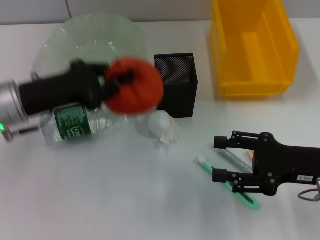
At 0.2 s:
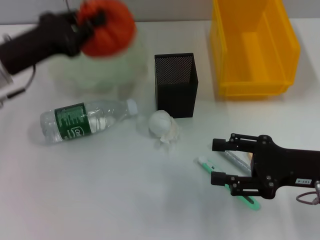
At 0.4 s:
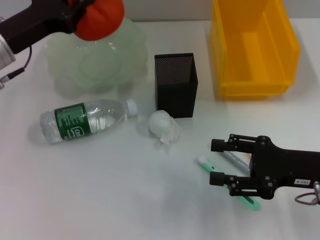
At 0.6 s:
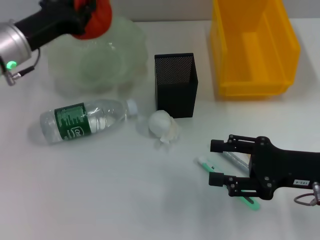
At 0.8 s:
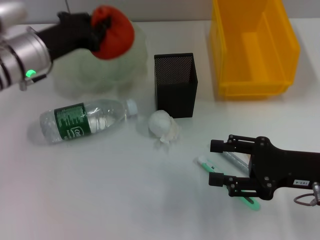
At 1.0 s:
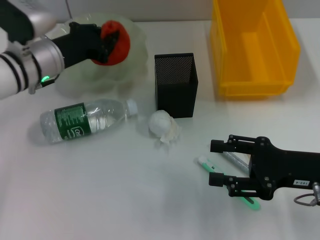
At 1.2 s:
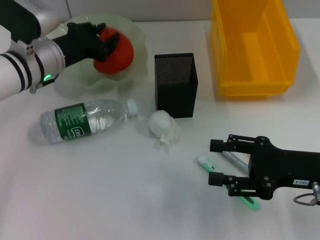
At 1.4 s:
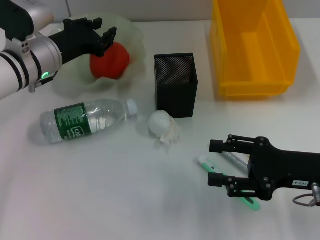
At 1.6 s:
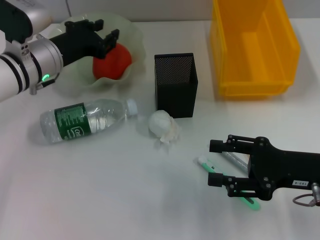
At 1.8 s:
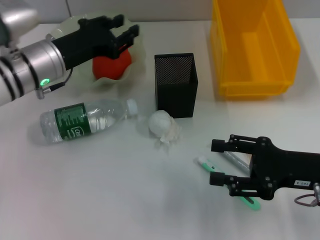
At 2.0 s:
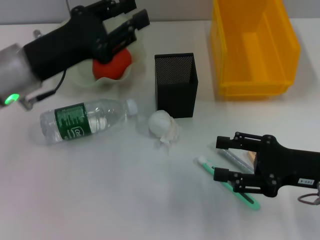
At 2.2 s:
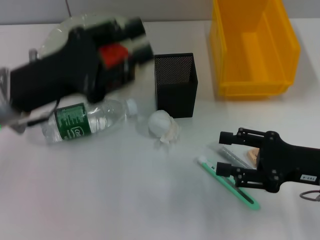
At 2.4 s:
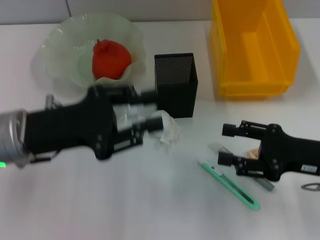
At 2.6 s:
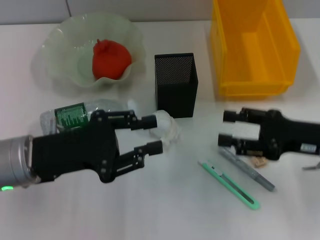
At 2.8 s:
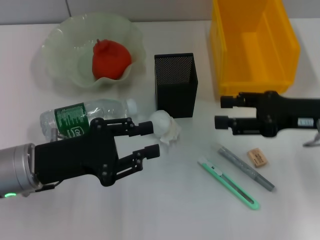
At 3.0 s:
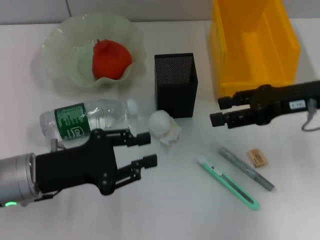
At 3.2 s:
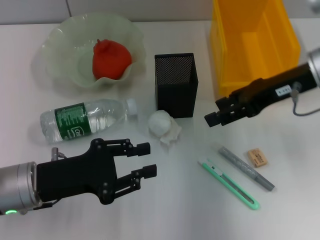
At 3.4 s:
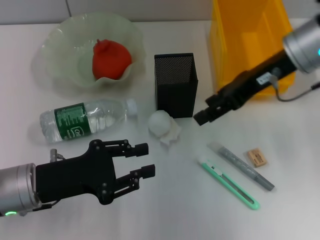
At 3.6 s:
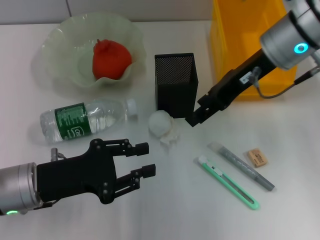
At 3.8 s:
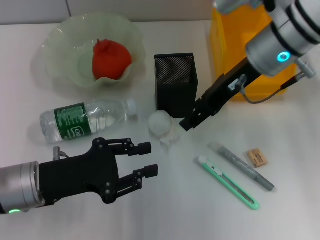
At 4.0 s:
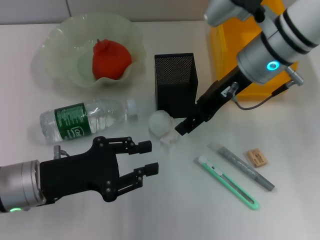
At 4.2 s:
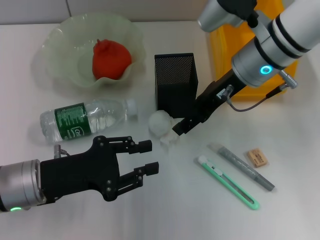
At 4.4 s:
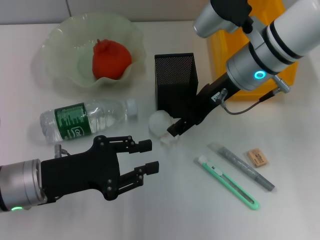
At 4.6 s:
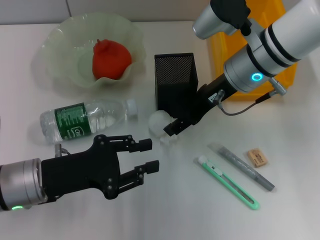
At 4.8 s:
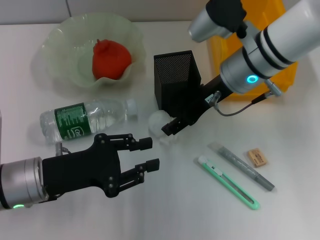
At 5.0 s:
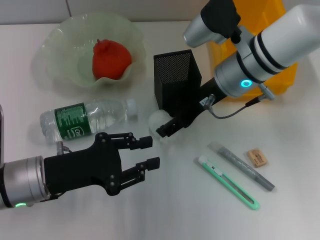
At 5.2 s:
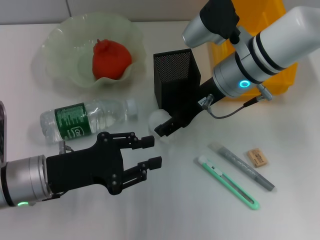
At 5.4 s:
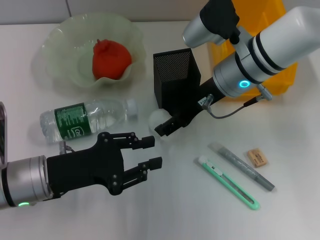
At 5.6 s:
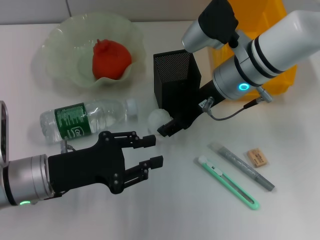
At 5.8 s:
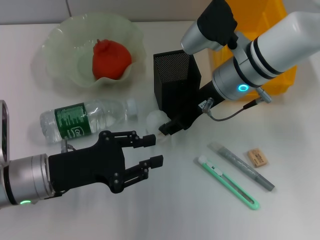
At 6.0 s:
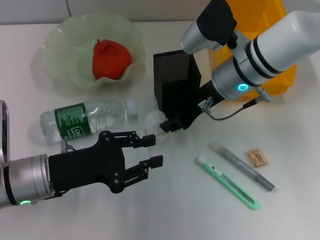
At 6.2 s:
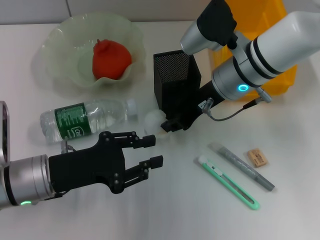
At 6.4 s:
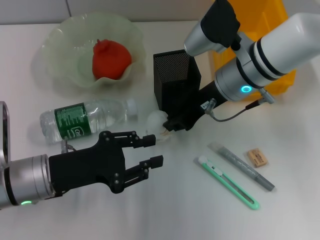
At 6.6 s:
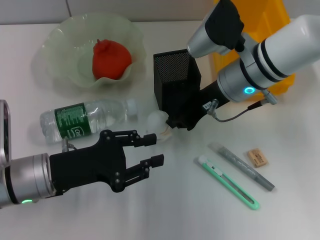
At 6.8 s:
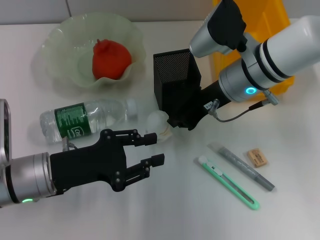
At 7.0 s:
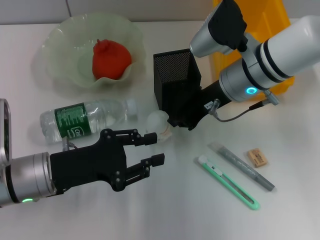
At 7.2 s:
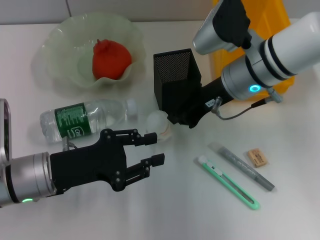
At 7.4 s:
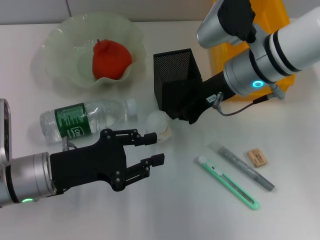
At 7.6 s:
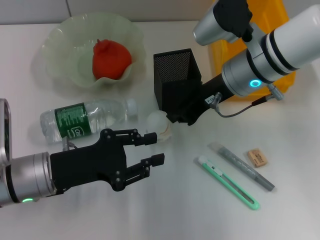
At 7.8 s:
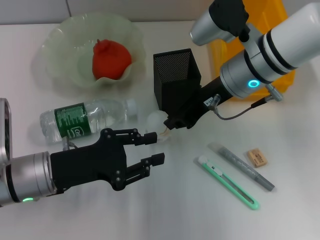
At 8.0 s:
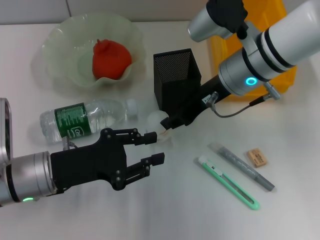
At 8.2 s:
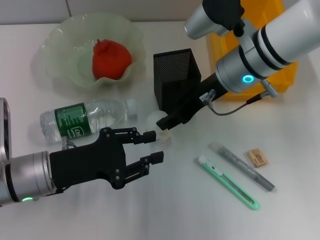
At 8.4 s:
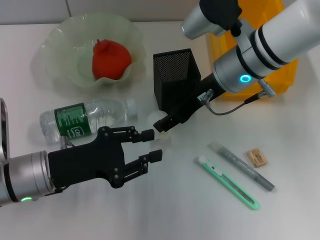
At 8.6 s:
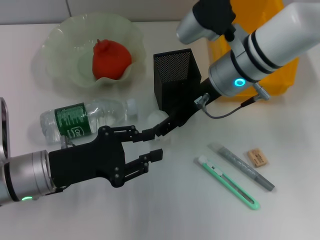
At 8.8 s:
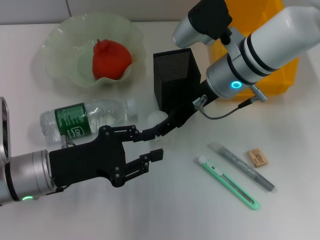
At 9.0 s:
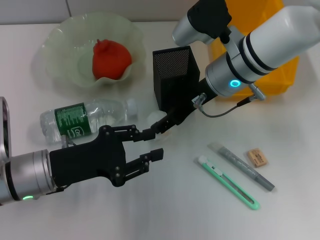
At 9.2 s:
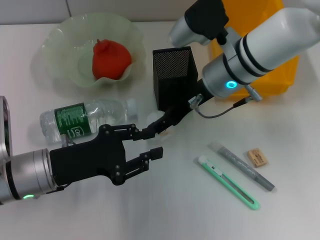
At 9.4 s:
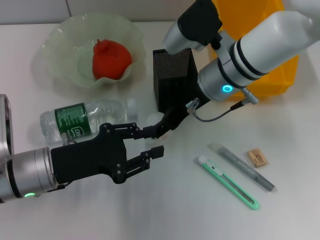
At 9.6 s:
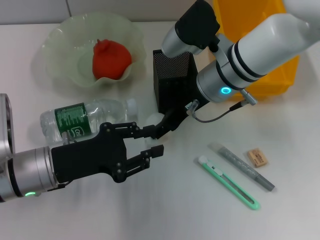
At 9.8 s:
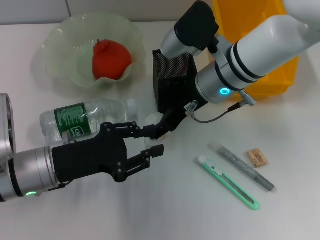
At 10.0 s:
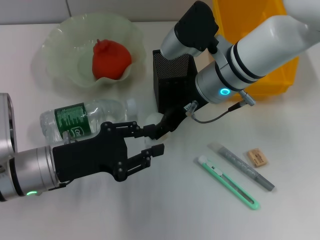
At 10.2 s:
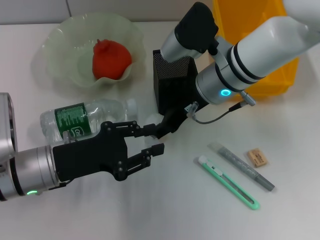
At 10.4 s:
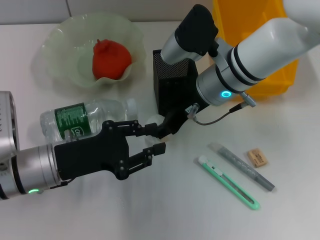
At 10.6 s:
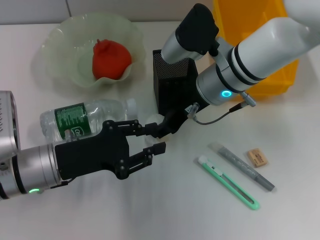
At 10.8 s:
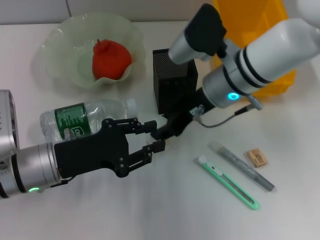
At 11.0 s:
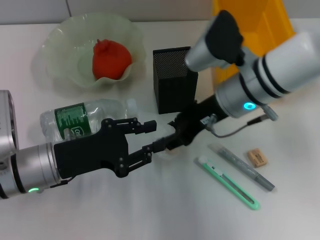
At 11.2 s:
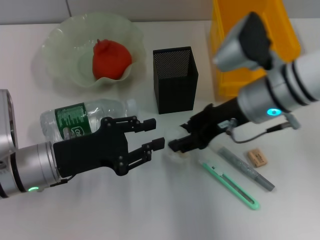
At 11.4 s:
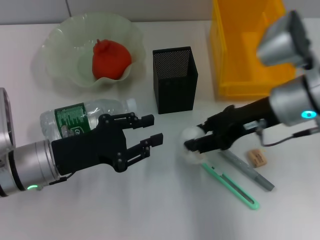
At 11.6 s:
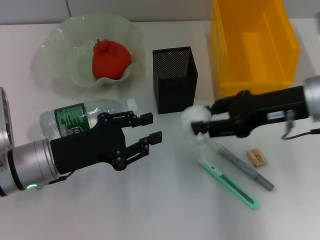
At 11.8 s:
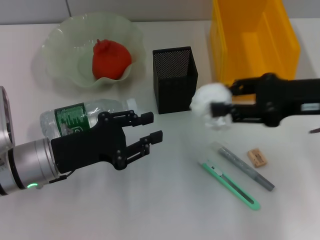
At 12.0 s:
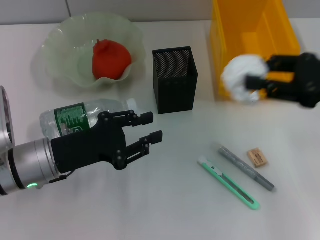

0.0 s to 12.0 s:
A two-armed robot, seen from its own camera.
Step, 0.0 to 1.4 s: Place the orange into the fruit bowl with the left hand.
Step, 1.6 to 10.4 s: Grab the paper ball with the right hand.
0.0 to 1.6 s: The left gripper goes some 10 cm forward, and opens.
1.6 to 3.0 s: The right gripper travels forward and upward by approximately 10 cm. Meanwhile the left gripper shifts some 15 cm backward.
3.0 to 4.4 s: The right gripper shifts about 15 cm to the left and forward.
4.4 to 6.0 s: The grippers make only small movements.
6.0 to 7.6 s: The right gripper closes its fingers.
7.6 to 9.0 s: The right gripper opens its fingers.
9.0 to 10.4 s: The grippers make only small movements.
10.4 to 12.0 s: The right gripper moves to the right and backward, about 20 cm.

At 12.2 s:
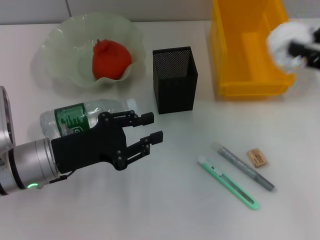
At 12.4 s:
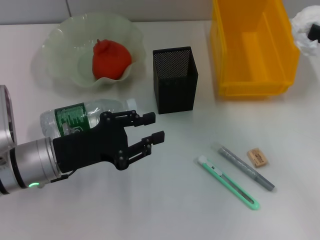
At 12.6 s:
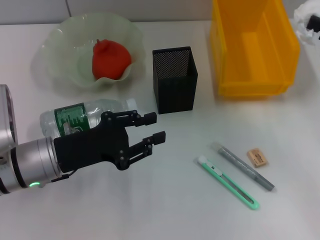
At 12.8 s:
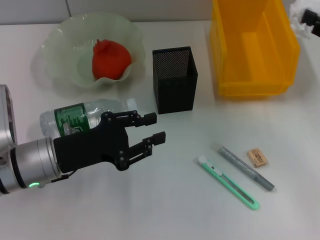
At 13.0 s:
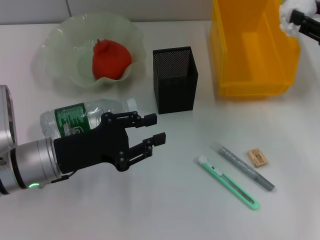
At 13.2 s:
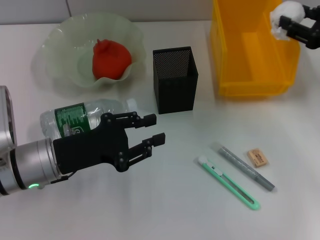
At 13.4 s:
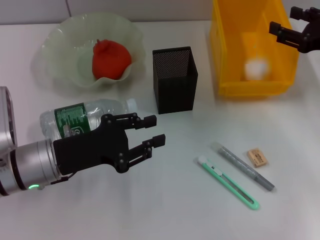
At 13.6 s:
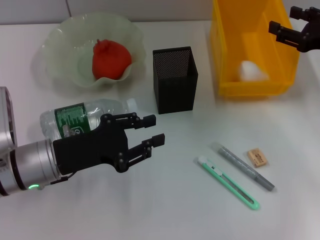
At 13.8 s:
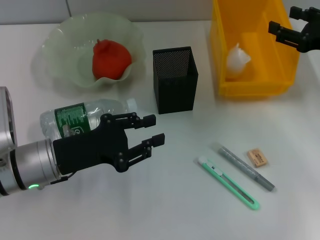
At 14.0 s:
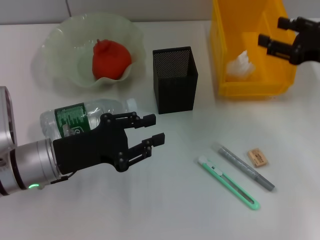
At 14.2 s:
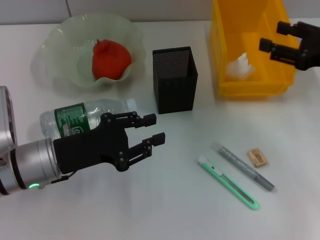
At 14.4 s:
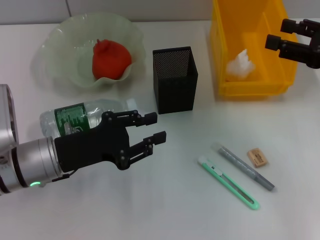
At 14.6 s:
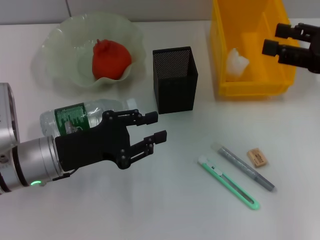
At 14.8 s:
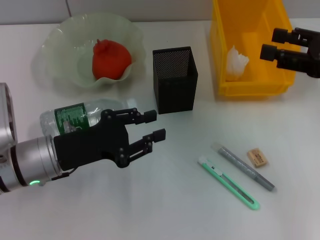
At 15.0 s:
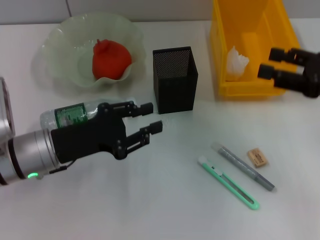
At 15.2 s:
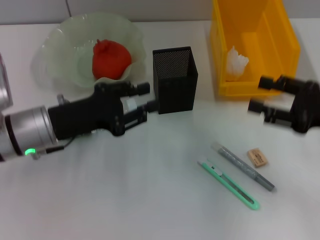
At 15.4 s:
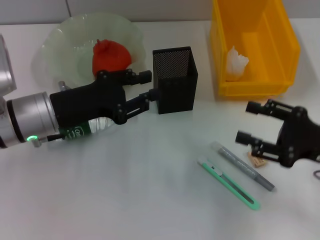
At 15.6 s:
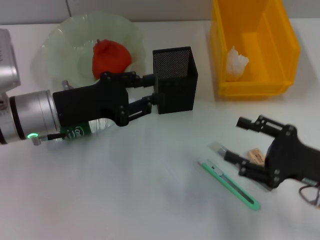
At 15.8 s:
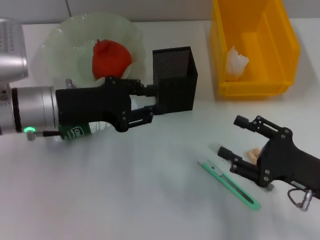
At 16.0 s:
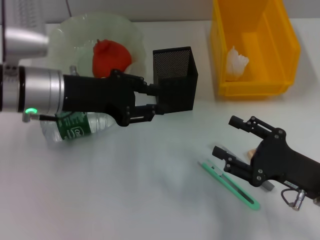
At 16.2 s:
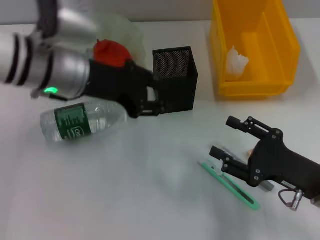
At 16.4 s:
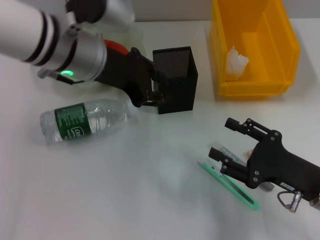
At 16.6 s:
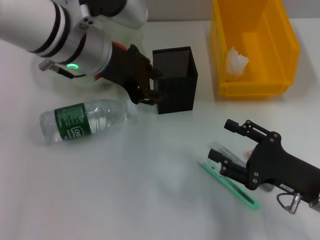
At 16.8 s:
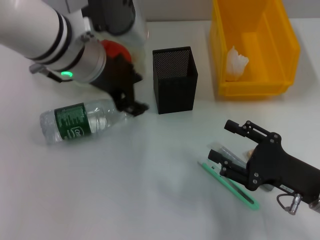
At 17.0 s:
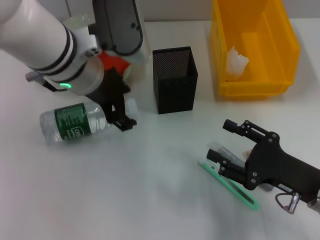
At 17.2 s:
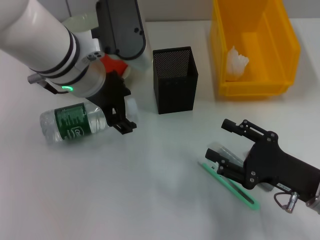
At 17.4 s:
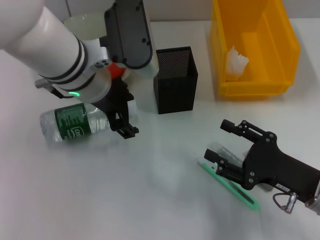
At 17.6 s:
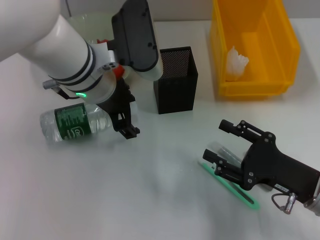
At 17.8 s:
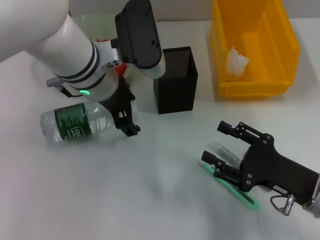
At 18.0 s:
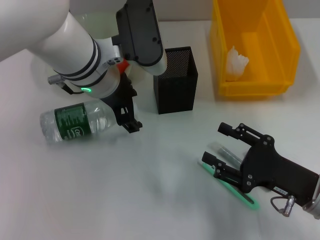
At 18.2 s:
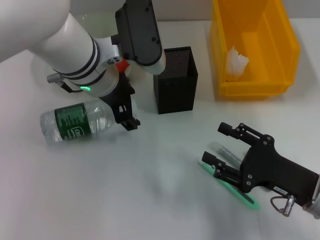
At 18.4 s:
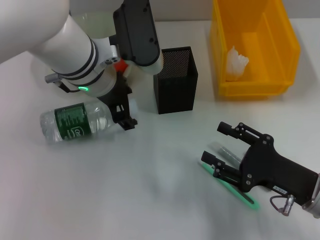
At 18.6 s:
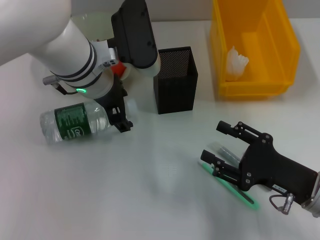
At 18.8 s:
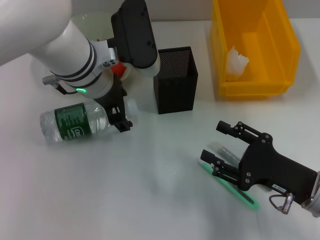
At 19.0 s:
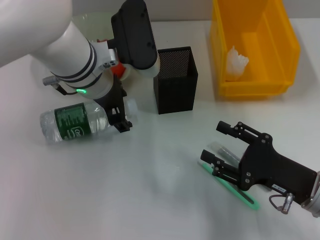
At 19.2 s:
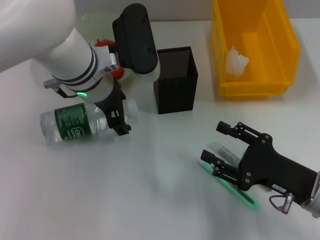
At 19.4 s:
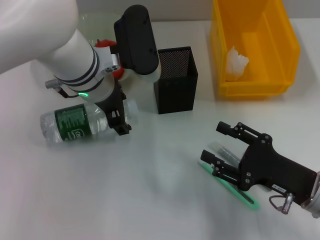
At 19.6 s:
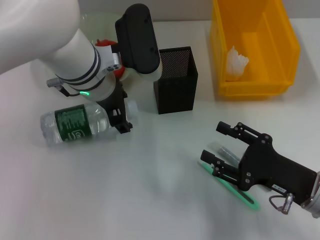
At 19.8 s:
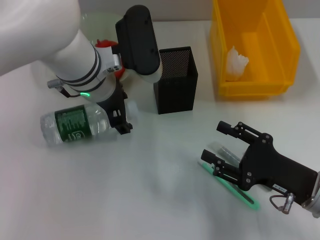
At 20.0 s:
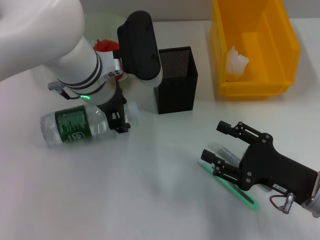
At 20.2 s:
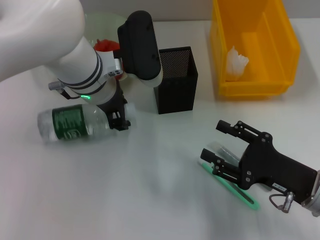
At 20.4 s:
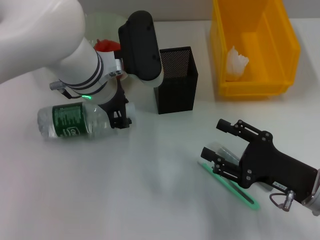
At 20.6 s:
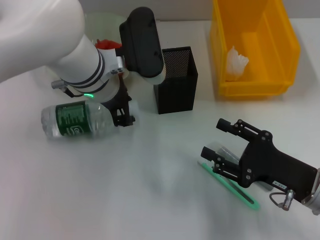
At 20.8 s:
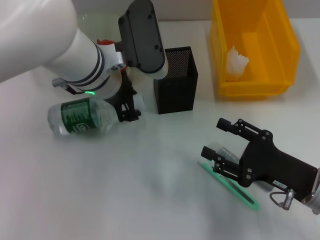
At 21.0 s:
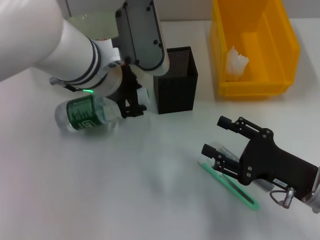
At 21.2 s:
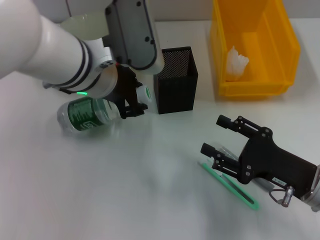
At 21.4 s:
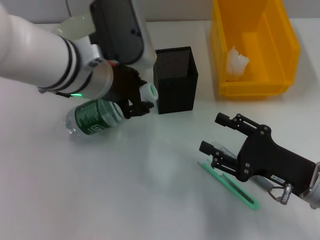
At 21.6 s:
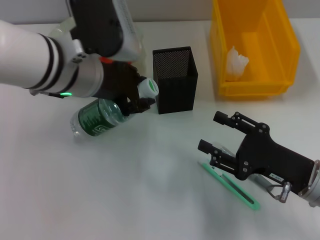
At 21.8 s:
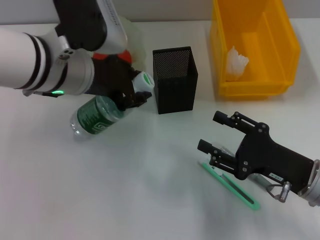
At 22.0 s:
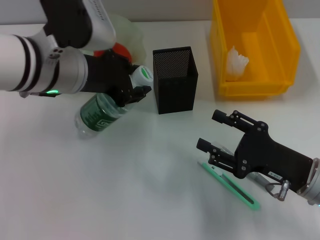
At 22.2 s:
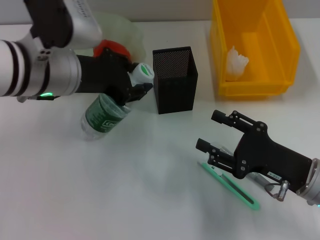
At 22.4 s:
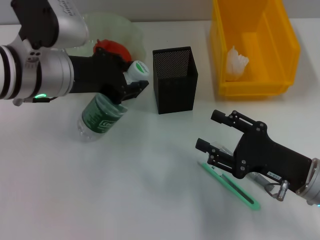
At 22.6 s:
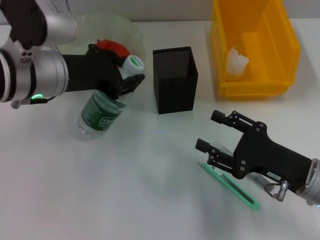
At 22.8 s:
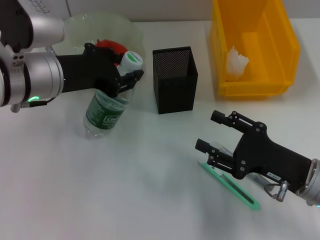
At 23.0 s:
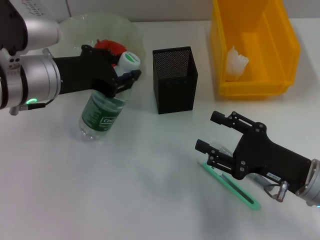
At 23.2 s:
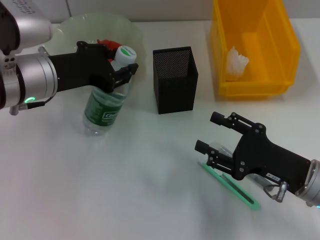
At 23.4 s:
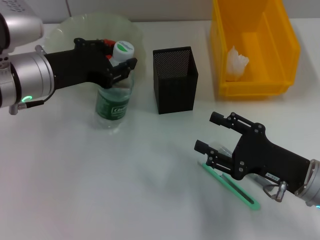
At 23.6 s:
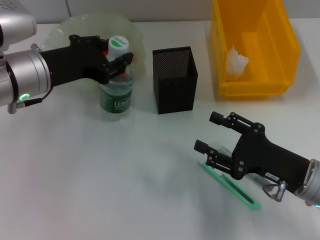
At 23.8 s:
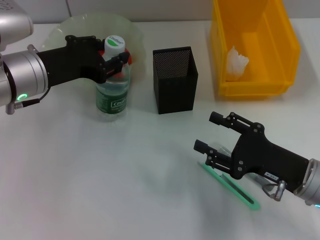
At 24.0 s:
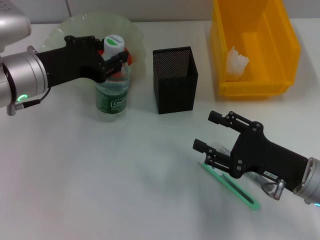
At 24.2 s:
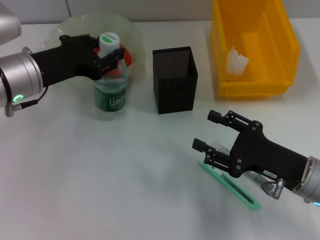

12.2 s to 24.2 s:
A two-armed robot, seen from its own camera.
Step, 13.8 to 20.4 s: Grab the water bottle with the left hand.
12.2 to 13.8 s: The right gripper moves forward, some 10 cm.
13.8 to 15.2 s: The right gripper heads backward, covering about 10 cm.
15.2 to 16.6 s: The left gripper is displaced upward, to the right and forward by about 15 cm, while the right gripper moves downward, backward and to the left, roughly 10 cm.
16.6 to 18.2 s: The left gripper opens its fingers.
18.2 to 19.8 s: The grippers stay close to where they were, moving slightly.
19.8 to 21.2 s: The left gripper closes up.
21.2 to 22.6 s: The left gripper goes approximately 5 cm to the left.
22.6 to 24.2 s: The grippers make only small movements.
